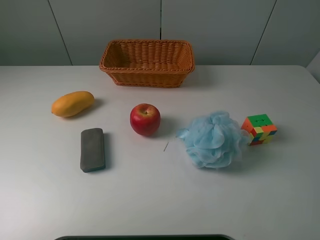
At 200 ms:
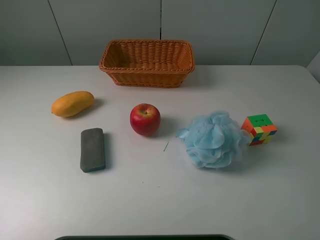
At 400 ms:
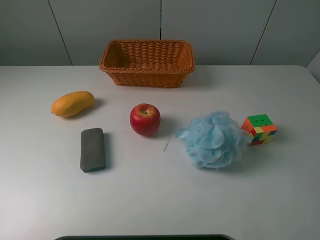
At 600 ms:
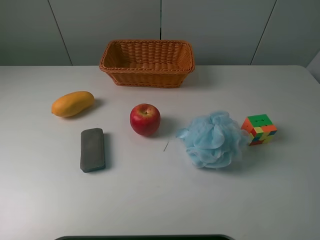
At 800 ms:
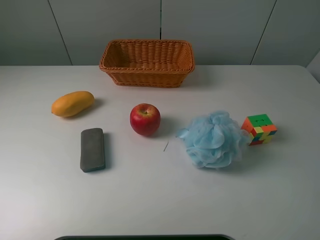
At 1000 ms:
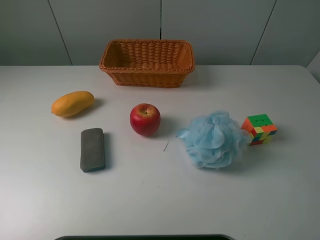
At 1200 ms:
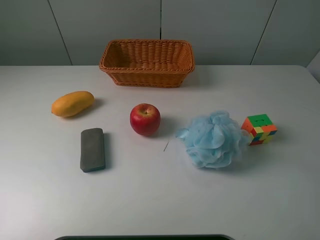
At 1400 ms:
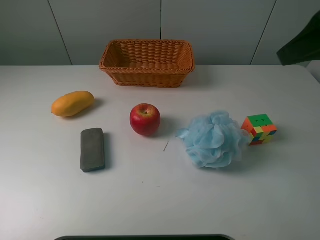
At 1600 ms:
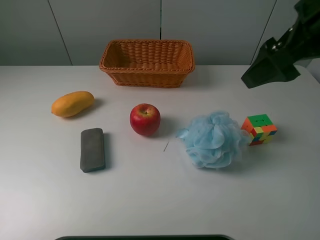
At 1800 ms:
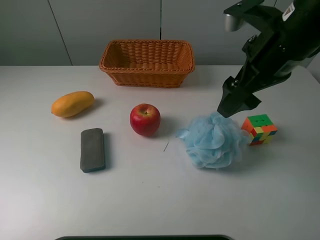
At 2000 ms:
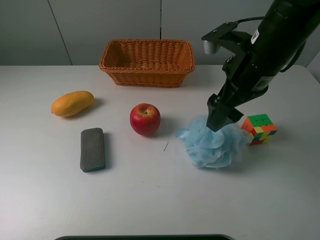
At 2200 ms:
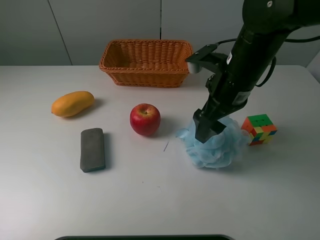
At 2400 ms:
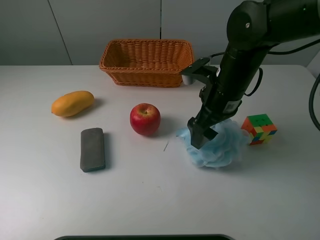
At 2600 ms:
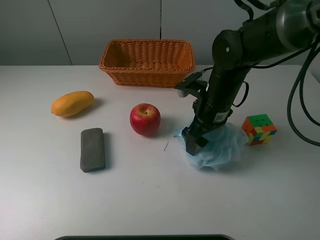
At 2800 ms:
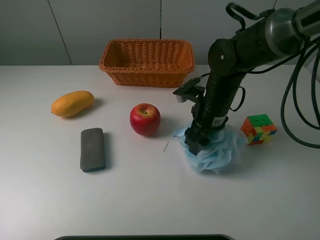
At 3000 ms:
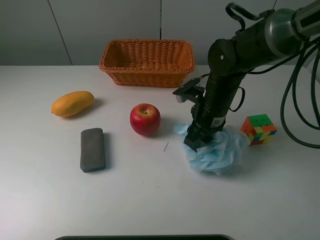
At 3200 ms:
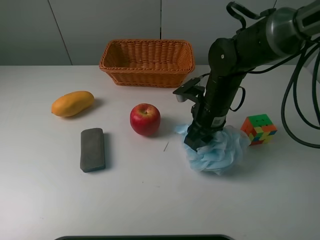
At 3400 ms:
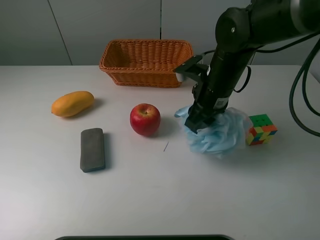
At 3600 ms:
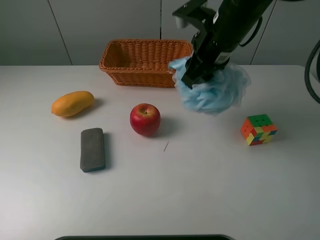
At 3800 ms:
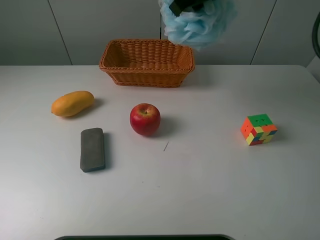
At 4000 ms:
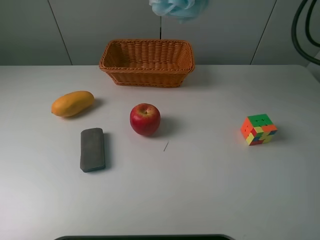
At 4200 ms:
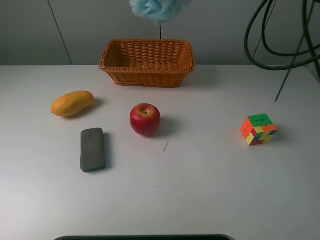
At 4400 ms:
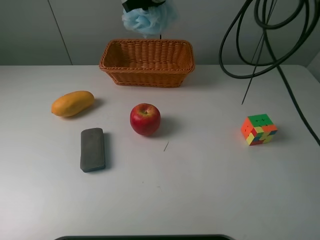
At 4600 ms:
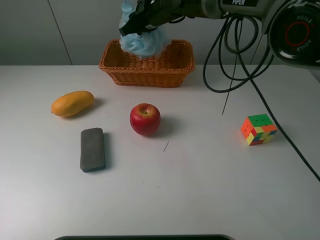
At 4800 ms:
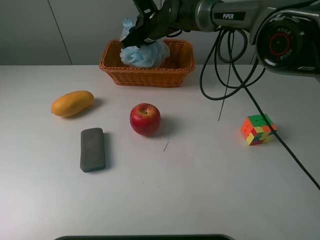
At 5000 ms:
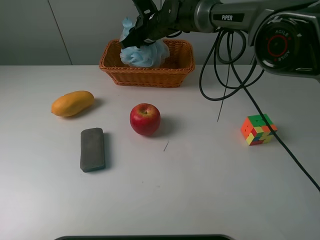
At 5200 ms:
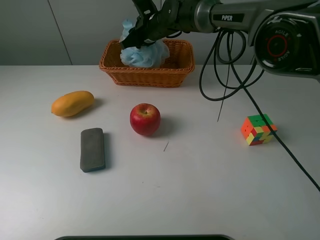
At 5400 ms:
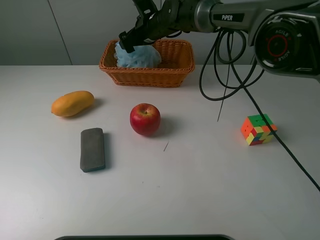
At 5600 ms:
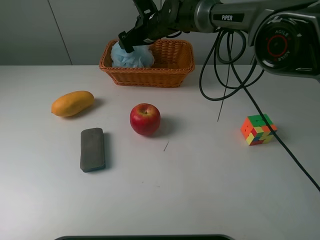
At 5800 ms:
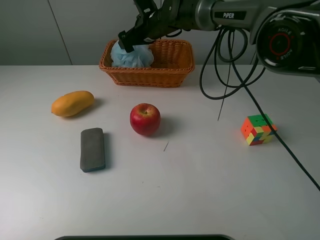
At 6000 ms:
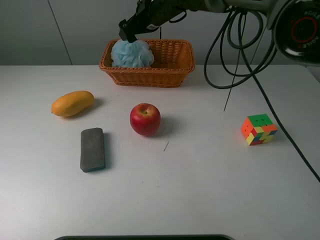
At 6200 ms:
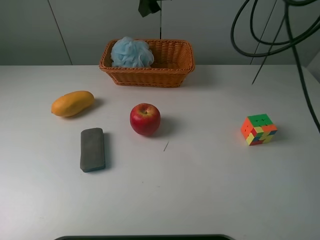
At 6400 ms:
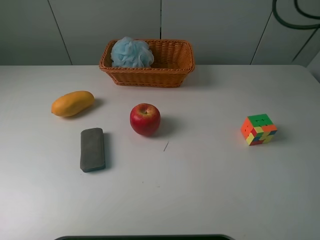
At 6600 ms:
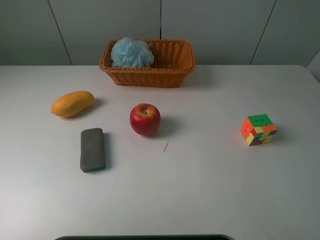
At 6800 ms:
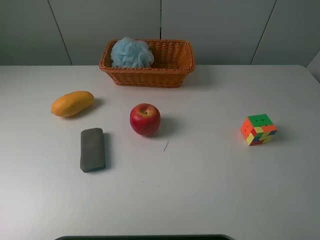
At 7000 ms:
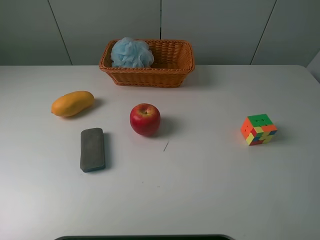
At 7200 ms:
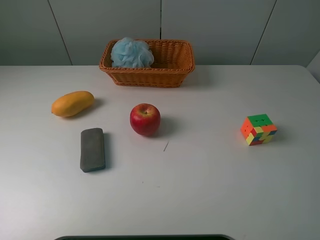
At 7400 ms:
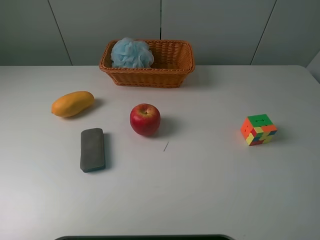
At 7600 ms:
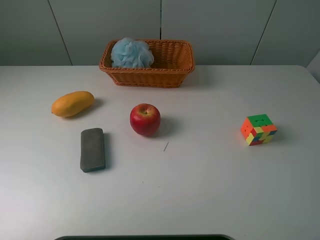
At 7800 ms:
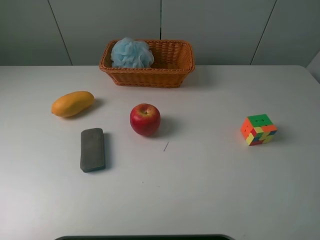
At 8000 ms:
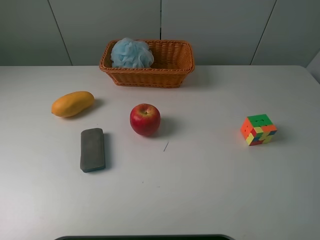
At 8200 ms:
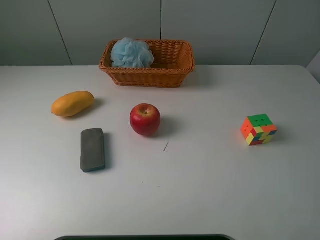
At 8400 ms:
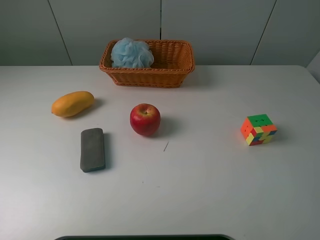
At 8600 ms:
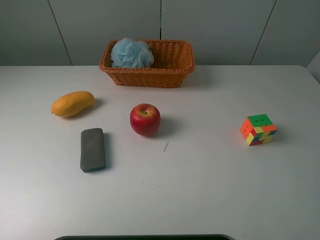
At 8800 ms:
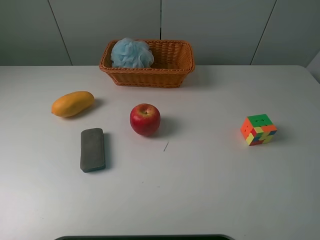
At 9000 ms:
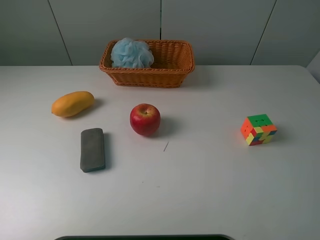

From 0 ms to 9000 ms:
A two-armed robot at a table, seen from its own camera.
Task of the whole recording: use a picker to grab the item closest to the cube and place it in the basket.
Step, from 0 ms to 2800 ms: Grasp the Shower puff with the right gripper.
Step, from 3000 ms to 5800 ms: Place the Shower puff into the basket with the right gripper.
From 0 ms to 1600 ms: The right gripper goes some 20 cm forward.
From 1600 ms to 3000 ms: The right gripper heads downward, covering some 20 cm, and closes up.
From 3000 ms to 4400 ms: The right gripper moves forward, upward and to the left, approximately 25 cm.
From 4400 ms to 6000 ms: The right gripper opens.
From 6000 ms to 7600 ms: The right gripper goes approximately 50 cm backward and to the right.
